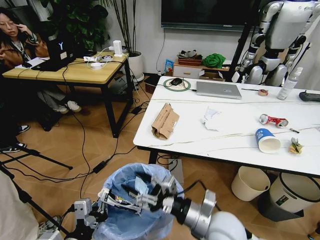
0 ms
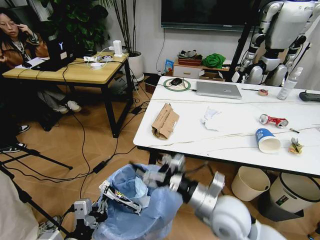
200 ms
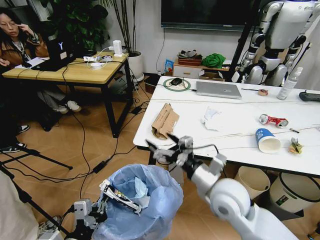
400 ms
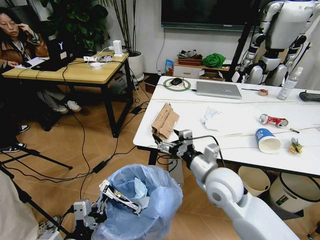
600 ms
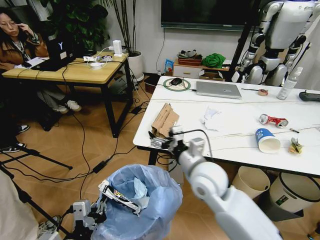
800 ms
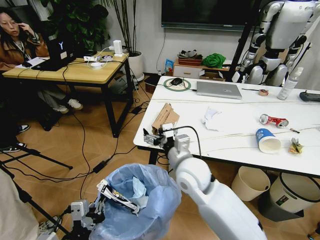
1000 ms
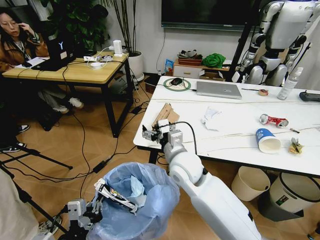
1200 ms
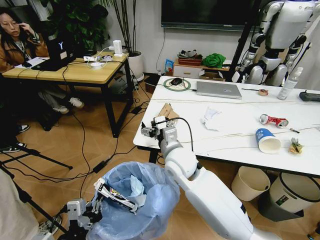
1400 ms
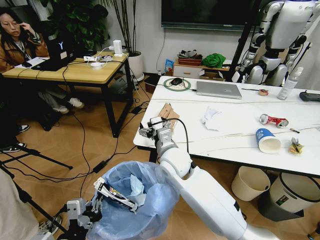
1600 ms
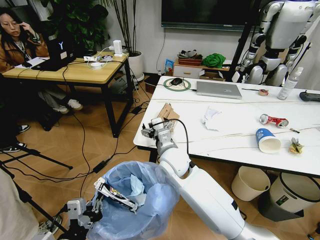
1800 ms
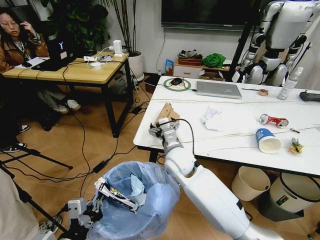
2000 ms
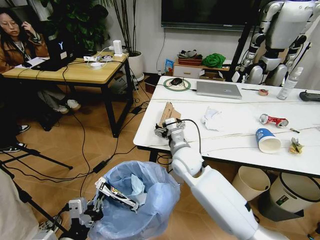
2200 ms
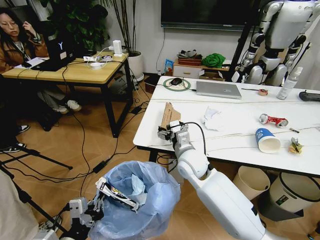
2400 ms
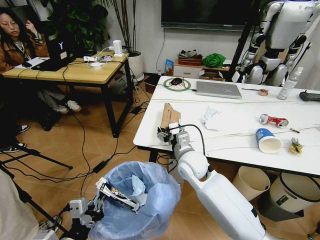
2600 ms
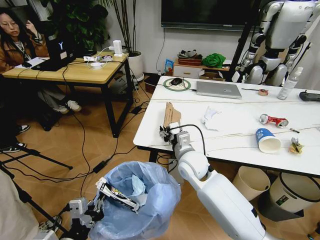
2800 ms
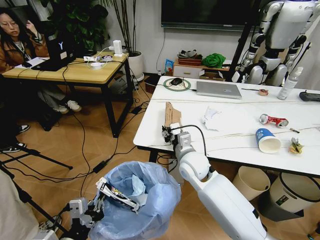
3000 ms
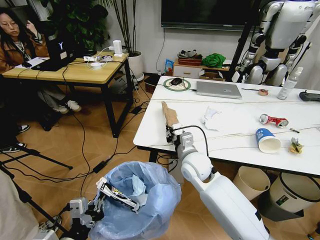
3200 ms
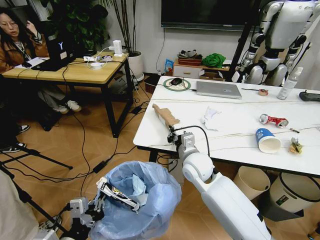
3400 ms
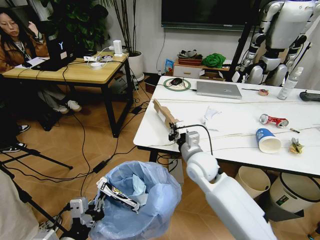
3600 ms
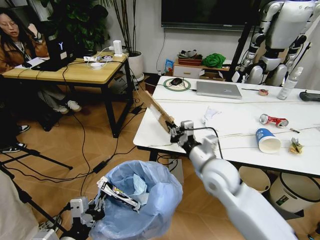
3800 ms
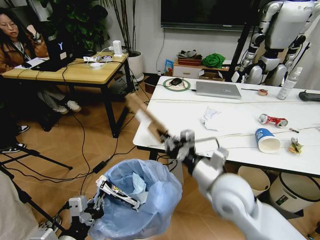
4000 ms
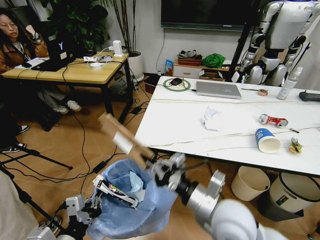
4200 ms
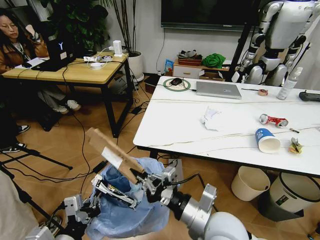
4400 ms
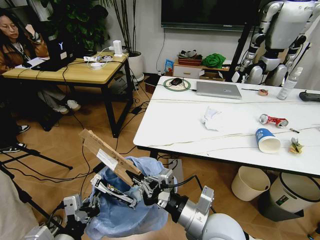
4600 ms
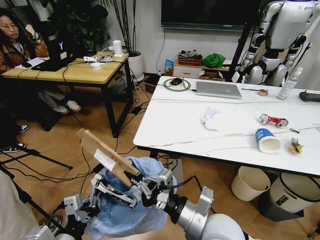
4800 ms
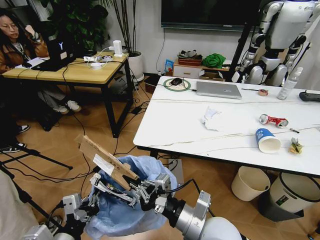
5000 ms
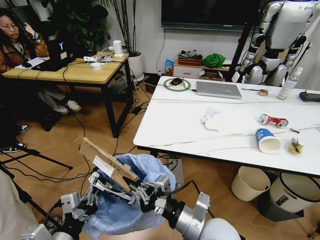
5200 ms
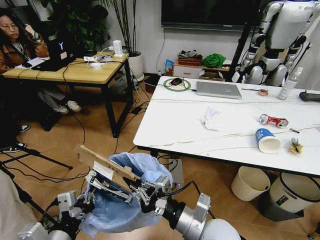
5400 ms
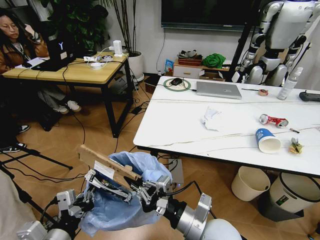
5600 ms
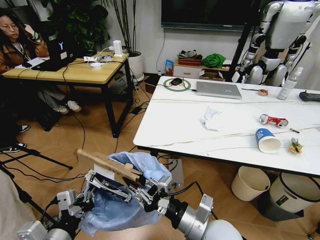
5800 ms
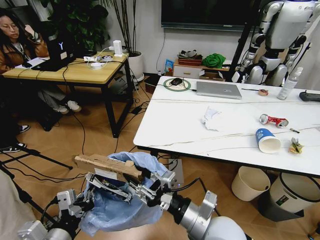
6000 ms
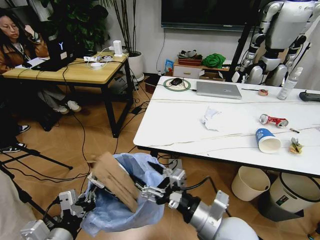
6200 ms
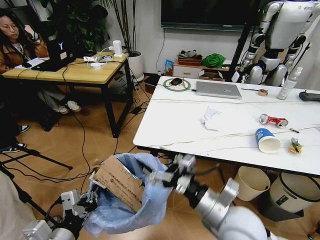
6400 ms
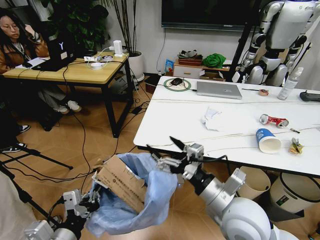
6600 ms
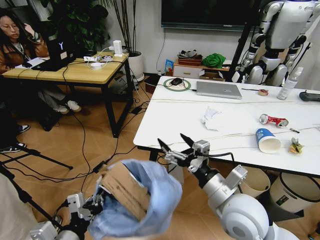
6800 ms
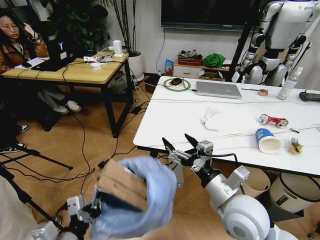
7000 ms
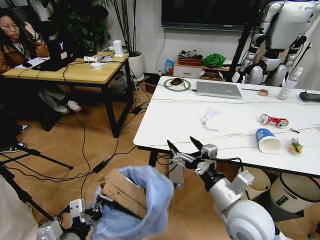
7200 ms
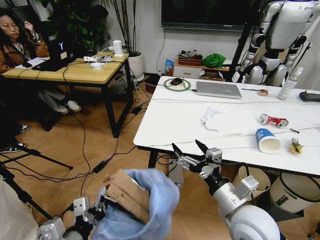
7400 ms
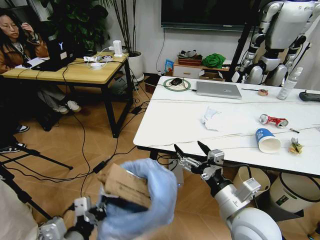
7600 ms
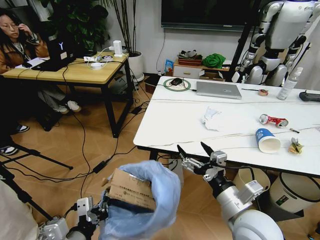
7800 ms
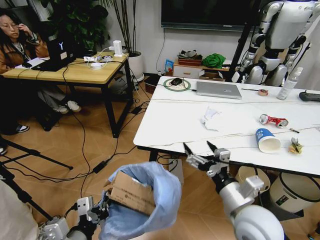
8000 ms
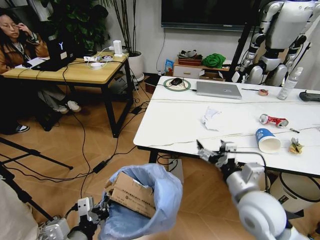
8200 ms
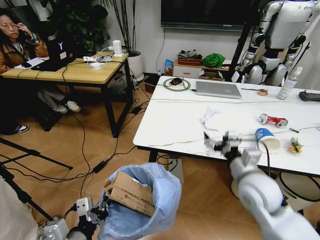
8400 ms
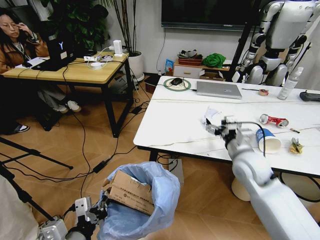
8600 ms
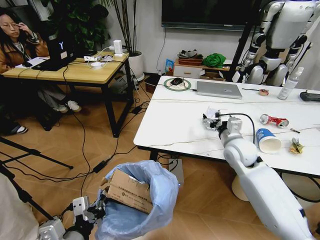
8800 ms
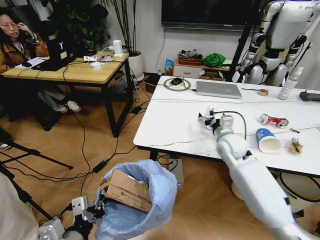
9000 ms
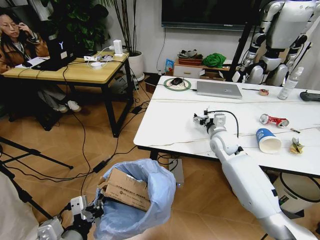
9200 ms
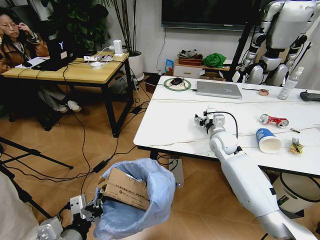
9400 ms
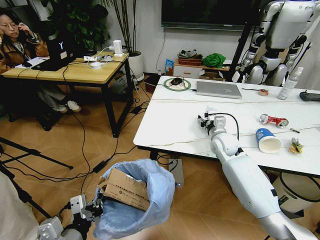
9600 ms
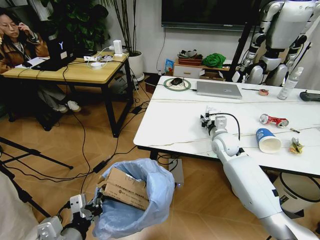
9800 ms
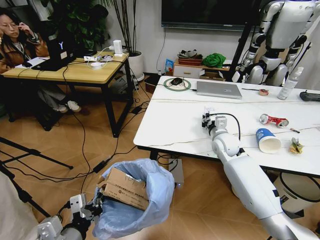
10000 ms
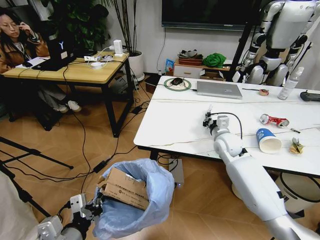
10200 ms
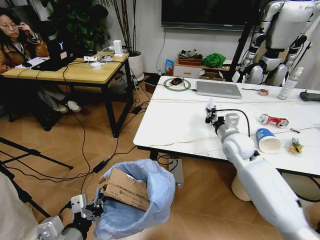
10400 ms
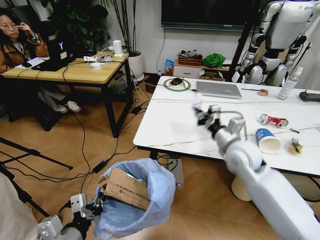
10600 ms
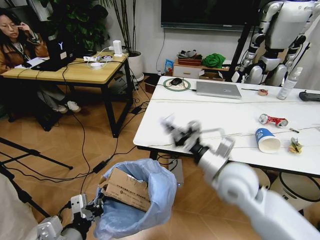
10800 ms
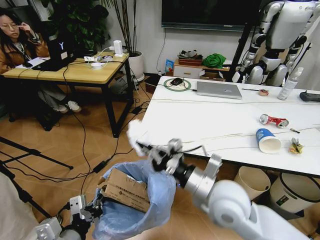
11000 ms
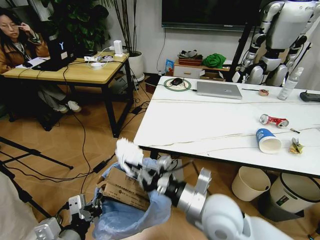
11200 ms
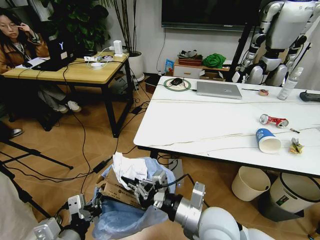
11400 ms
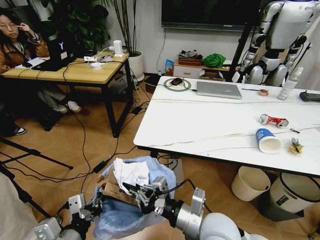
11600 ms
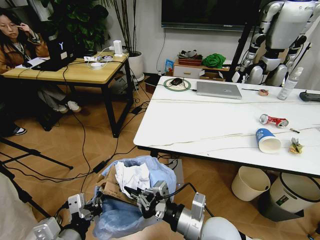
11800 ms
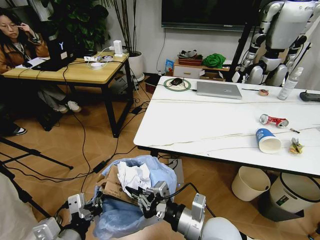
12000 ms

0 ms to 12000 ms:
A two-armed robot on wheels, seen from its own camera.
Task of the whole recording: Pick up the trash bin and place the trash from the table into it.
0 ms to 1600 ms: The right gripper shifts some 20 cm forward and to the left, and opens its fingers.
1600 ms to 3000 ms: The right gripper travels to the right by some 5 cm, and closes its fingers.
3000 ms to 4400 ms: The right gripper shifts roughly 20 cm backward, and closes up.
4400 ms to 6000 ms: The right gripper opens.
6000 ms to 7600 ms: The right gripper moves to the right, some 5 cm, and opens.
7600 ms to 9000 ms: The right gripper shifts approximately 25 cm forward.
9000 ms to 10400 ms: The right gripper closes its fingers.
10400 ms to 12000 ms: The right gripper is displaced backward and to the left by some 30 cm.

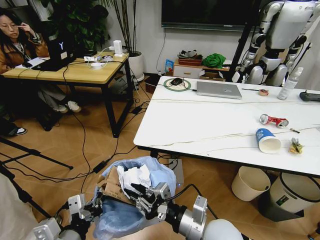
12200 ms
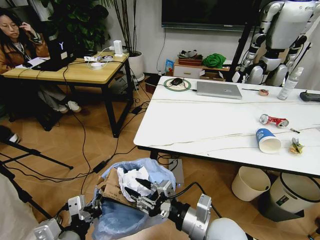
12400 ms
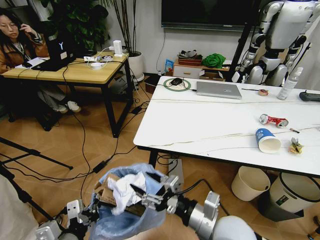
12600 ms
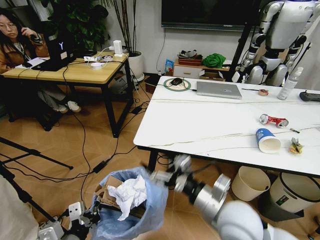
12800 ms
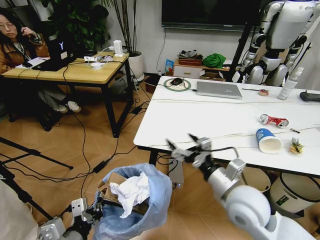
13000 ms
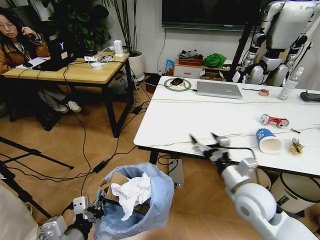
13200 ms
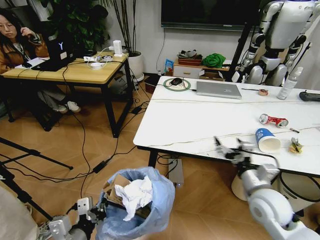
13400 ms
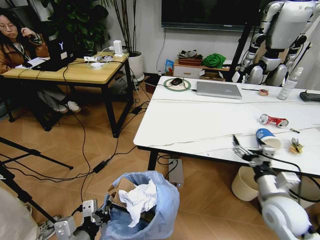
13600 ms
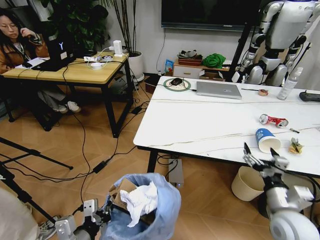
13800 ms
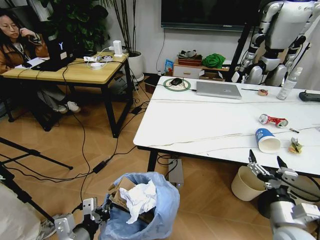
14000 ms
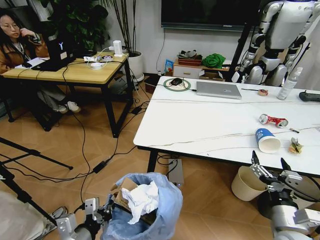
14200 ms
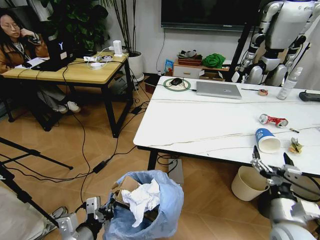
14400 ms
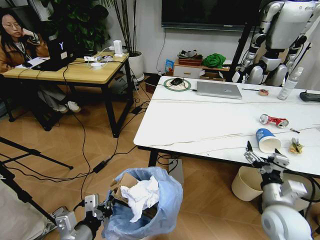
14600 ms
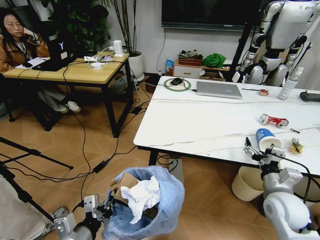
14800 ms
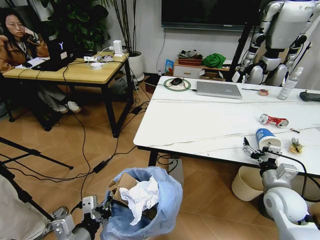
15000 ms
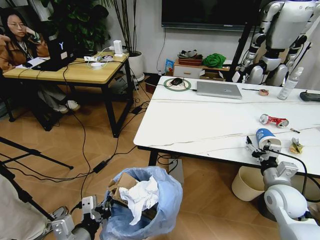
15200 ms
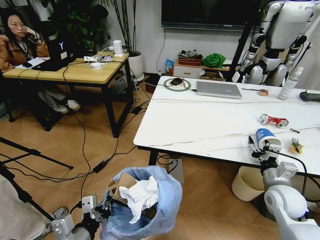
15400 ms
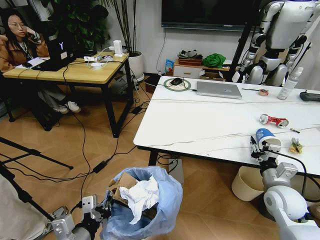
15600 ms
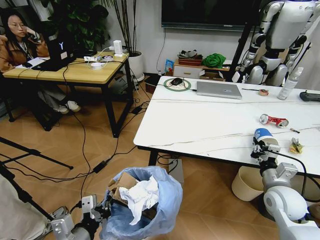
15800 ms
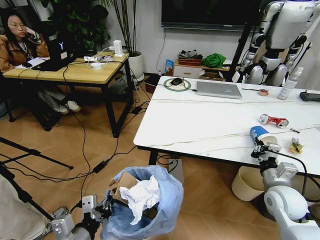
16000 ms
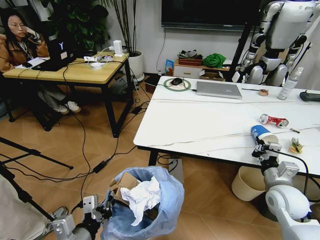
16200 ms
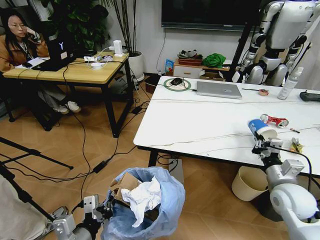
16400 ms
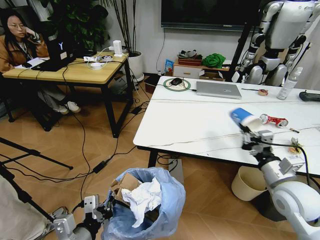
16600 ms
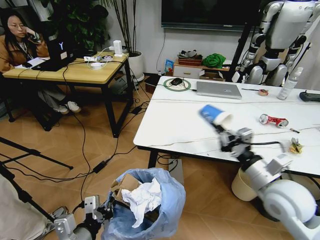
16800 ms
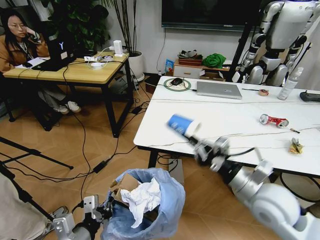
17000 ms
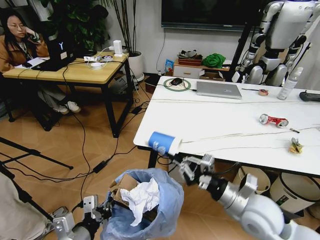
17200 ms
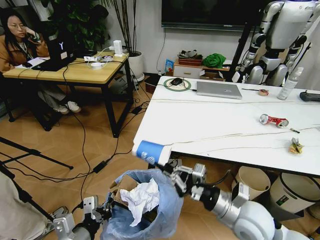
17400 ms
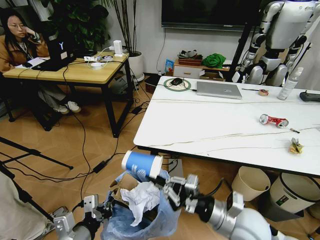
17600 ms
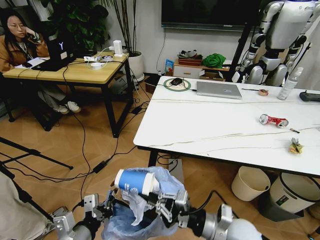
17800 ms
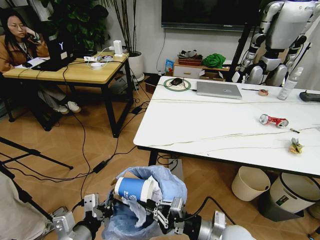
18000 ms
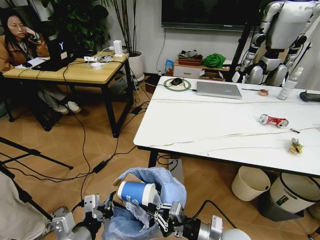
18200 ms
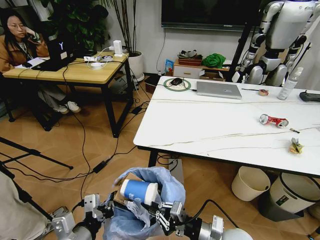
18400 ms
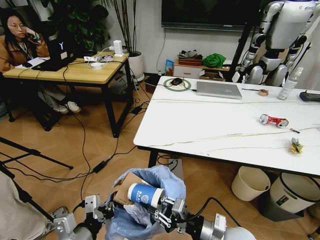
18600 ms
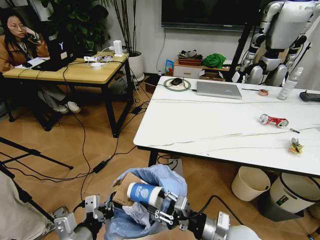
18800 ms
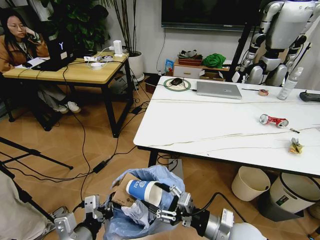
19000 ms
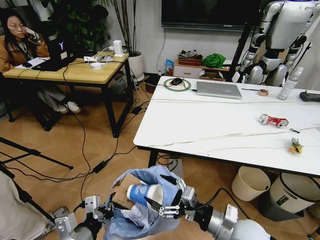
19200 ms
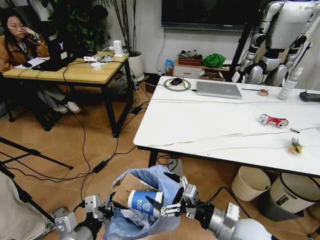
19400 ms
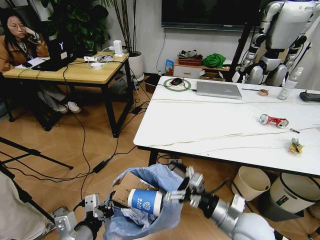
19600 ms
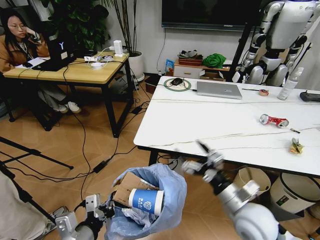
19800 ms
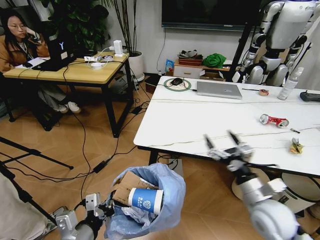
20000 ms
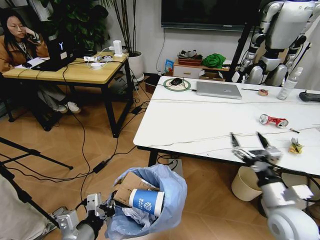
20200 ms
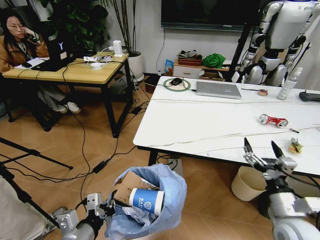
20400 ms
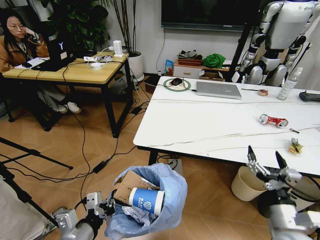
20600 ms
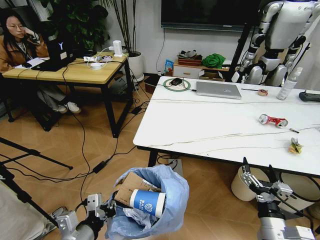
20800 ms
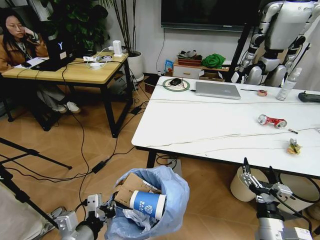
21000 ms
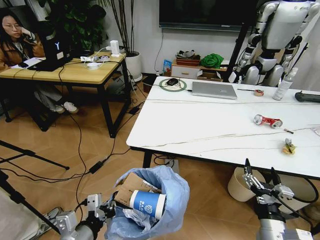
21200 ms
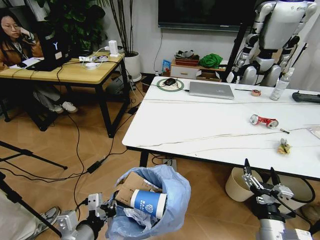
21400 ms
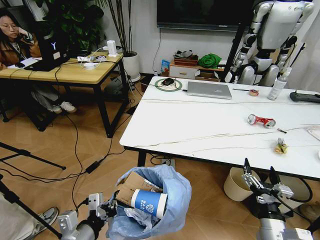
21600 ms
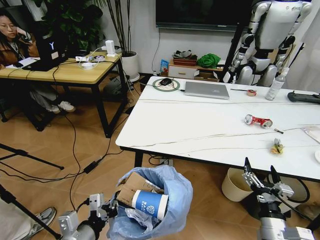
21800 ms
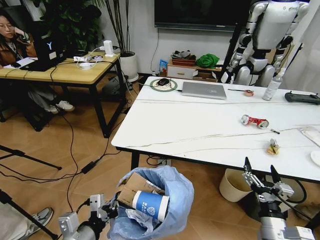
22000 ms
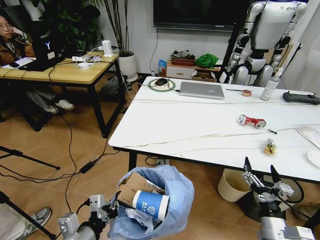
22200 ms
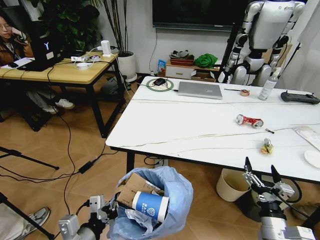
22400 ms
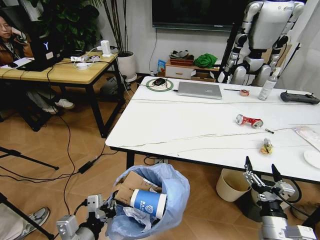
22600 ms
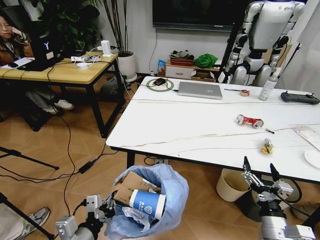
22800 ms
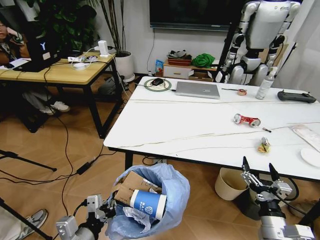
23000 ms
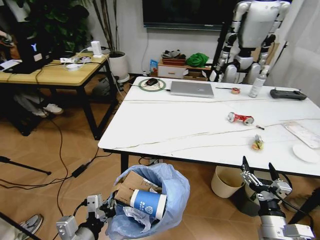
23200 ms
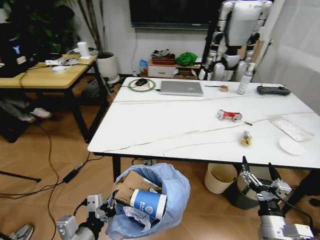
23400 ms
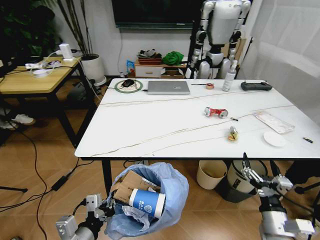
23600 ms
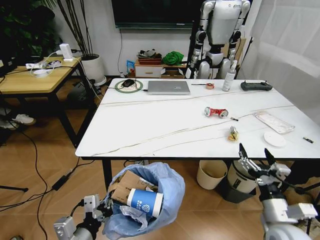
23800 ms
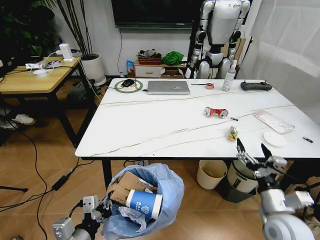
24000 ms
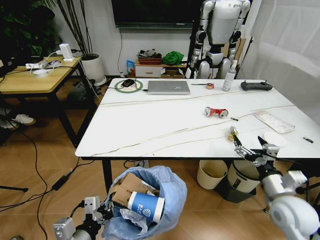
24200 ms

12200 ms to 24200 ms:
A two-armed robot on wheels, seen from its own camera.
Task of the whole recording: Pick up the trash bin and place the trash from the table into it.
12200 ms to 13800 ms: The right gripper travels to the right by about 20 cm, and opens. Meanwhile the left gripper shifts by roughly 5 cm.
13800 ms to 15200 ms: The right gripper goes approximately 10 cm forward.
15200 ms to 16600 ms: The right gripper moves upward, approximately 5 cm, and closes.
16600 ms to 18200 ms: The right gripper travels to the left, backward and downward by roughly 20 cm.
18200 ms to 19800 ms: The right gripper goes roughly 5 cm upward, and opens up.
19800 ms to 21200 ms: The right gripper heads backward, downward and to the right, covering roughly 15 cm.
22600 ms to 24200 ms: The right gripper moves forward and upward, roughly 10 cm.
